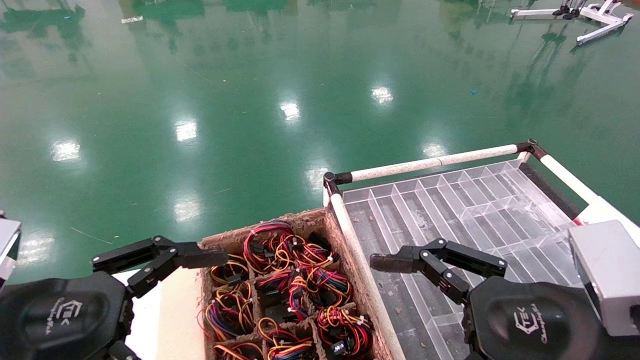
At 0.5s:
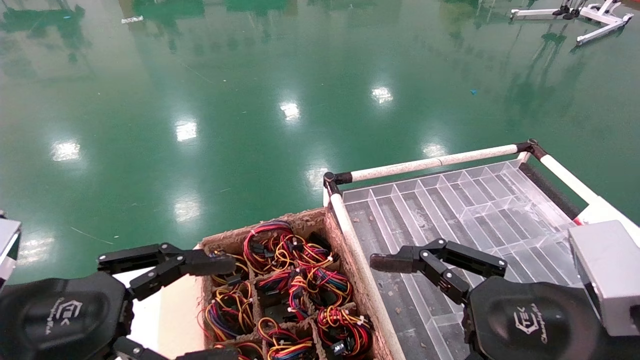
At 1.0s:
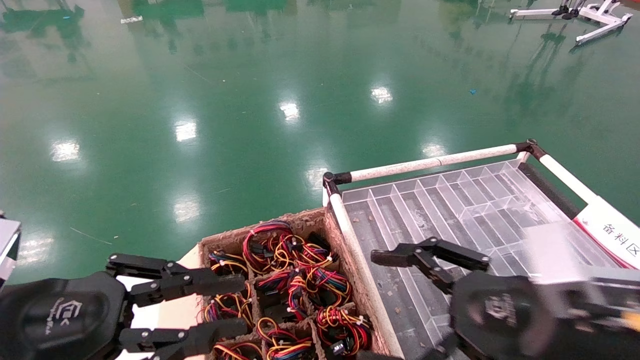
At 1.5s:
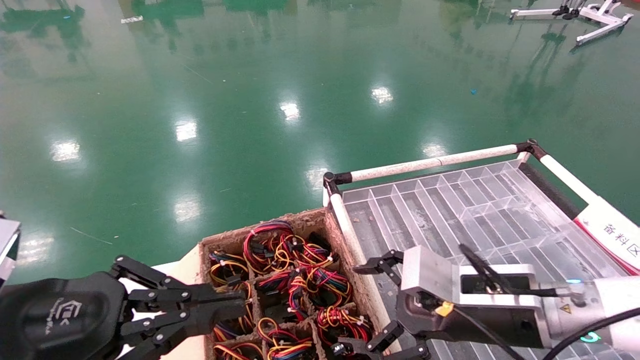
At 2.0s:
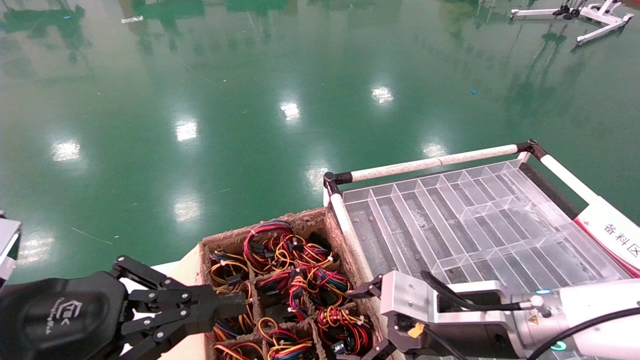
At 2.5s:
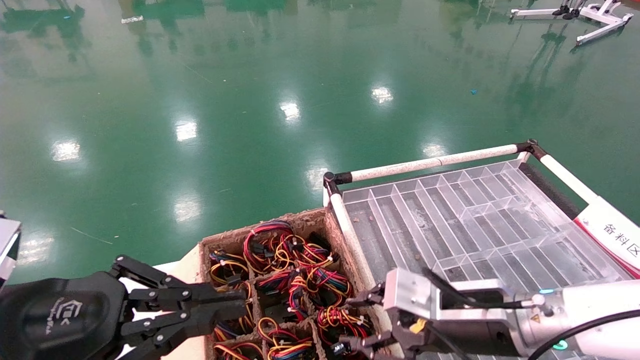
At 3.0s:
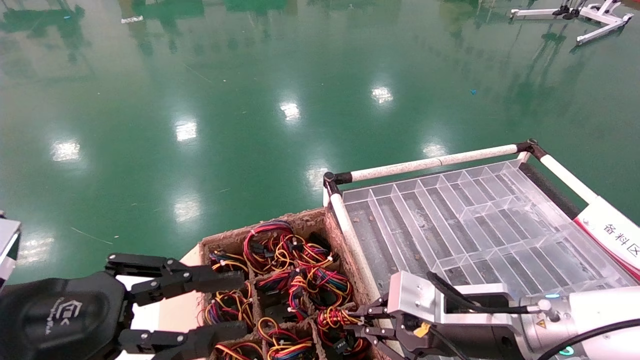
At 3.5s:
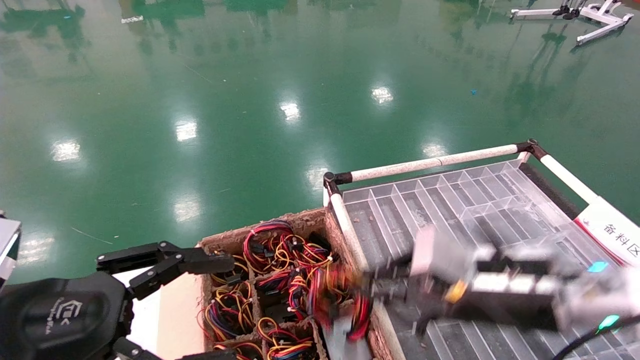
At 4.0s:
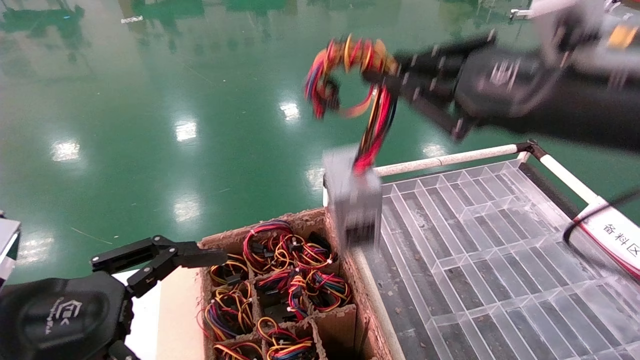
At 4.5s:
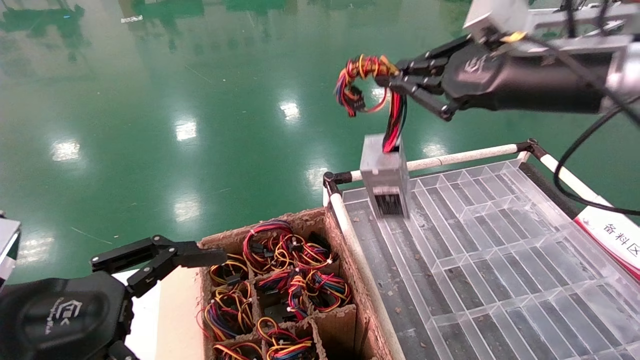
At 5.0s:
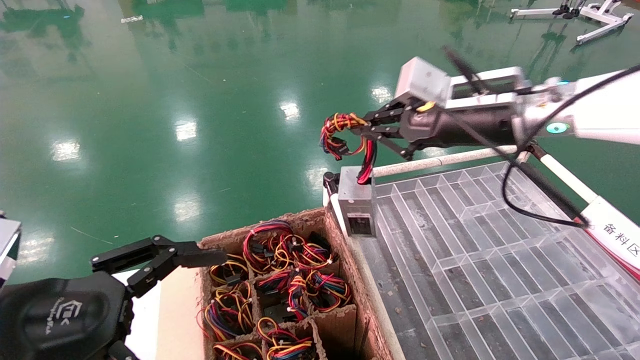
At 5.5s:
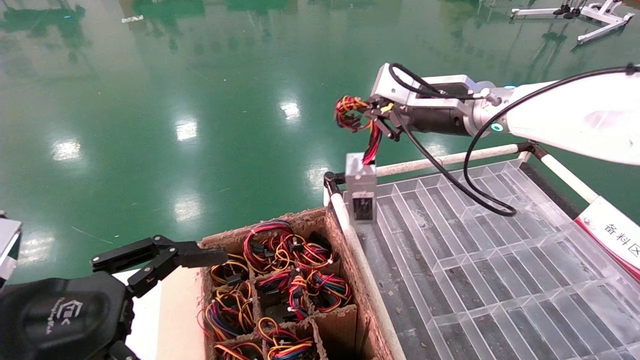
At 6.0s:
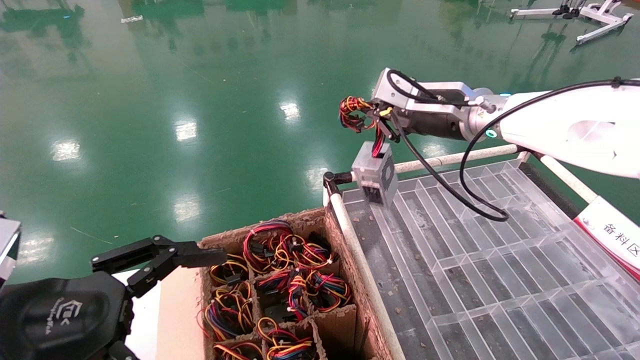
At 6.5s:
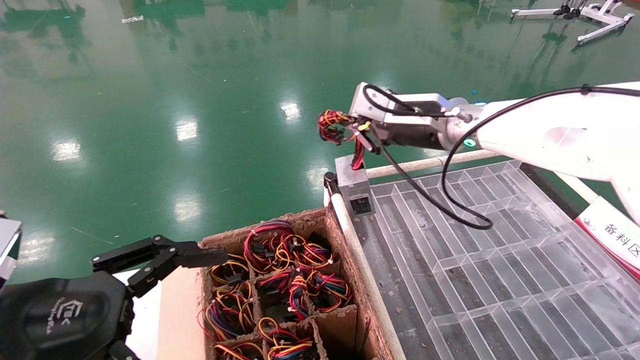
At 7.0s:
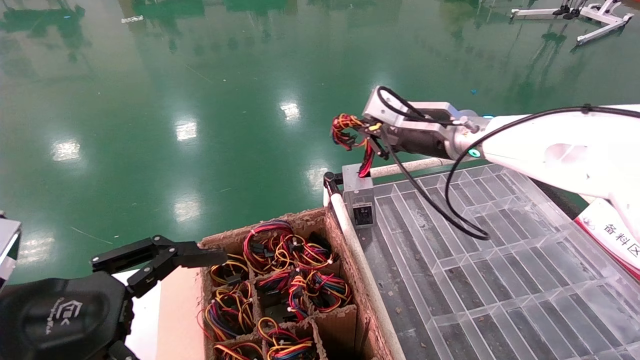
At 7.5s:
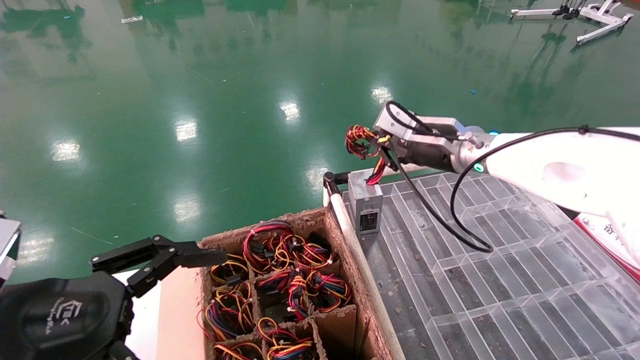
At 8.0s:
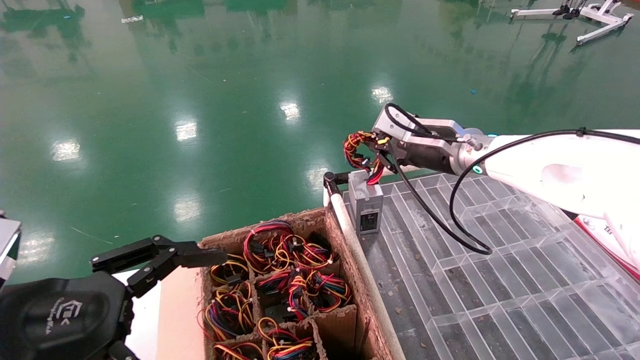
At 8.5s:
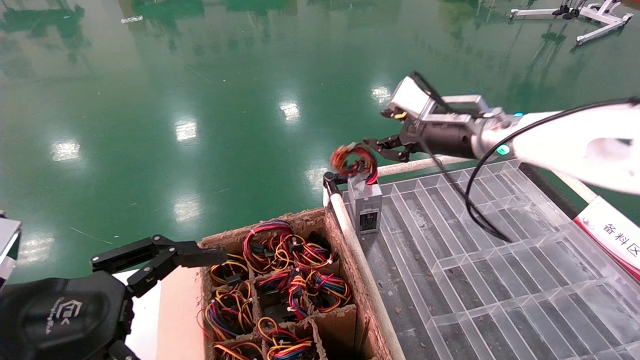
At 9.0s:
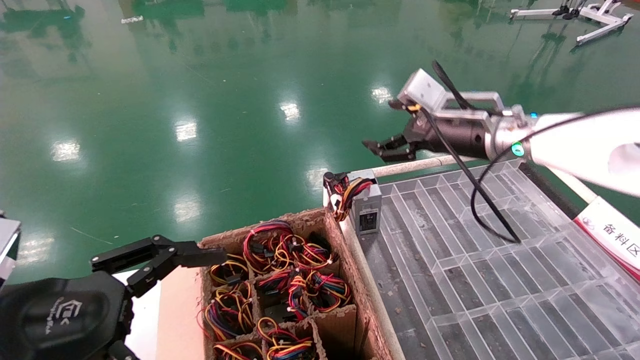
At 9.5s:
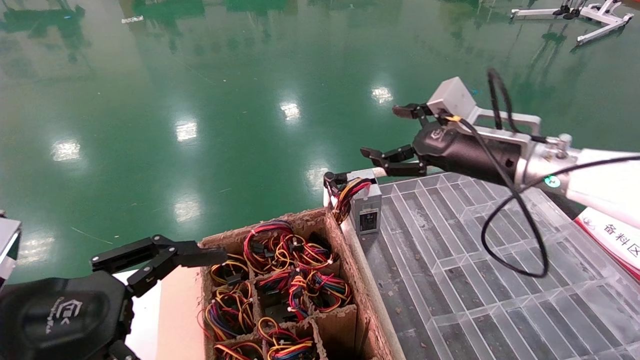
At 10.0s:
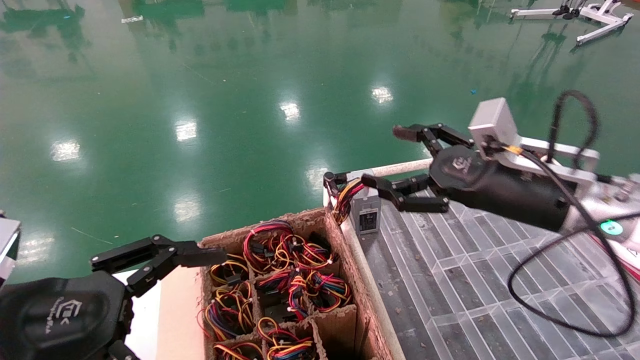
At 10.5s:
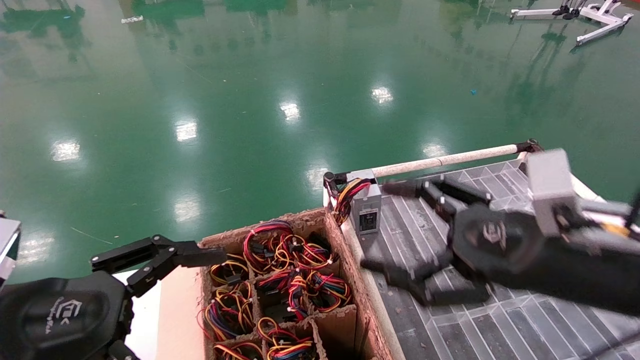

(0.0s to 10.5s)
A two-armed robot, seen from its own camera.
Step, 2.0s - 3.0s: Grab and lift the power supply from the large box.
Step, 3.5s - 8.0s: Place the power supply on the operating table.
0.0s - 2.0s: The right gripper moves forward and downward, roughly 15 cm, while the left gripper closes up.
2.0s - 4.0s: The left gripper opens. Meanwhile the right gripper goes about 20 cm upward, and closes up.
4.0s - 6.5s: The right gripper heads forward, covering about 20 cm.
6.5s - 8.5s: The right gripper opens up.
8.5s - 10.5s: The right gripper heads backward and downward, covering about 25 cm, and opens.
